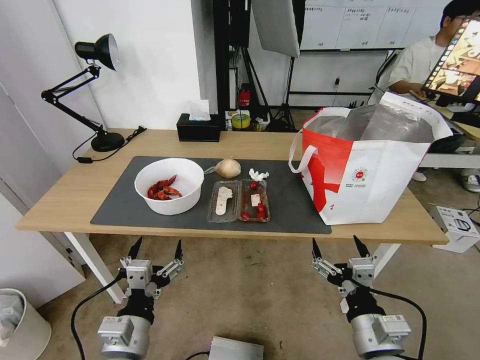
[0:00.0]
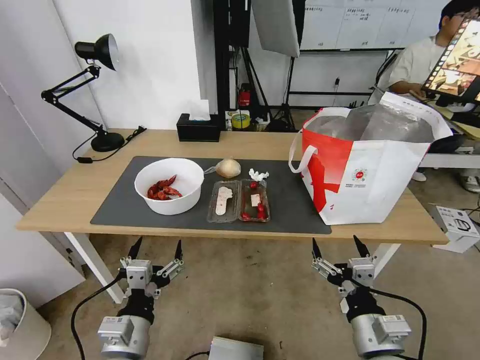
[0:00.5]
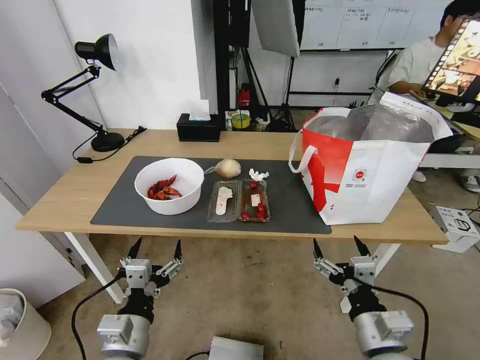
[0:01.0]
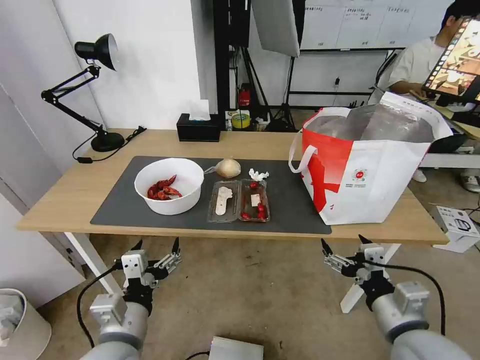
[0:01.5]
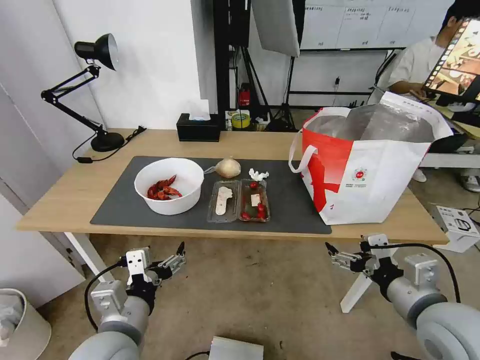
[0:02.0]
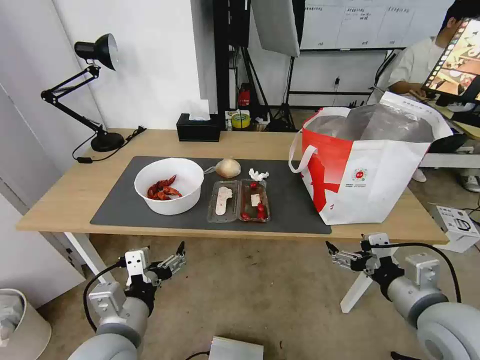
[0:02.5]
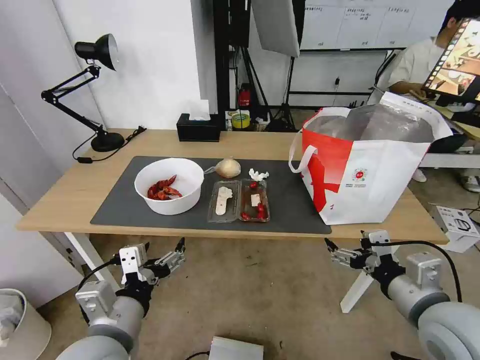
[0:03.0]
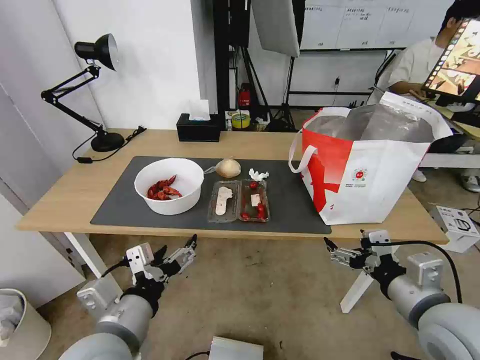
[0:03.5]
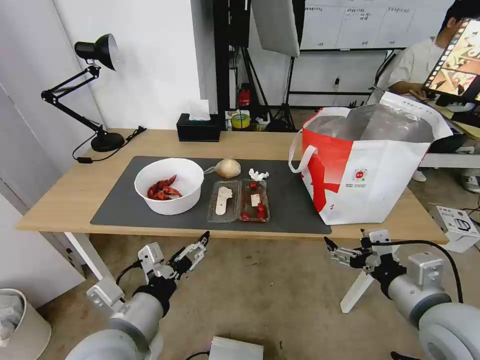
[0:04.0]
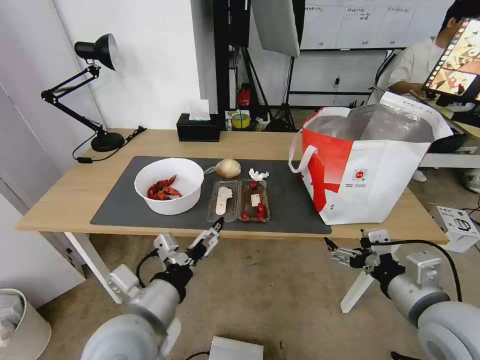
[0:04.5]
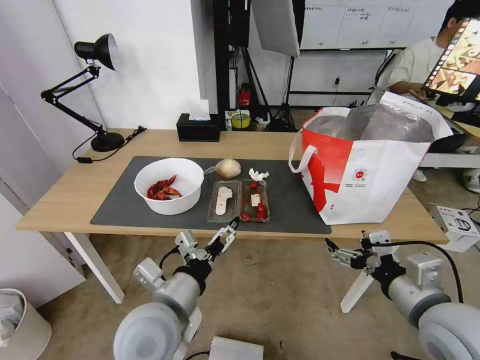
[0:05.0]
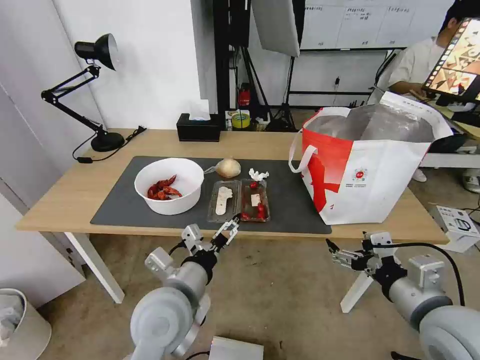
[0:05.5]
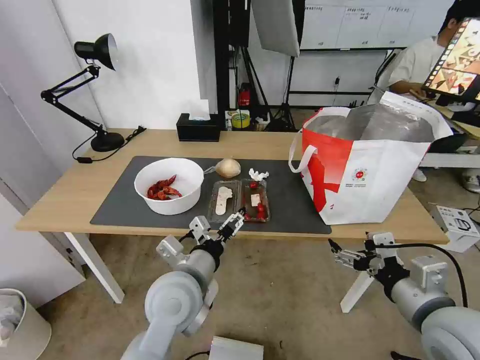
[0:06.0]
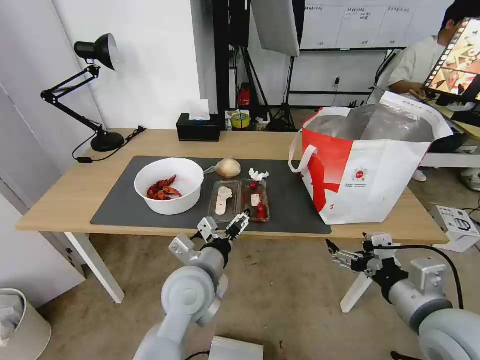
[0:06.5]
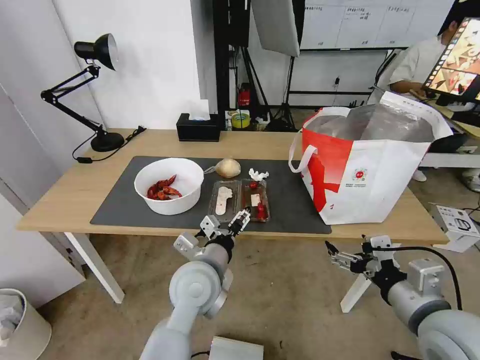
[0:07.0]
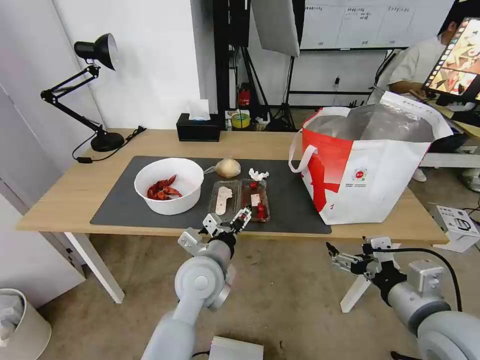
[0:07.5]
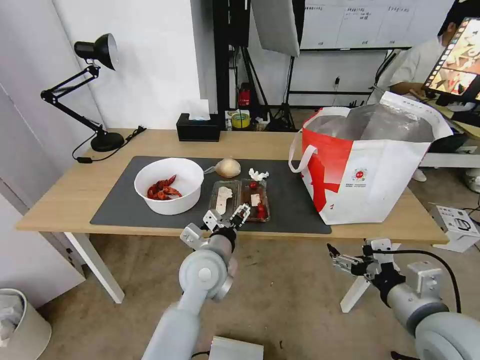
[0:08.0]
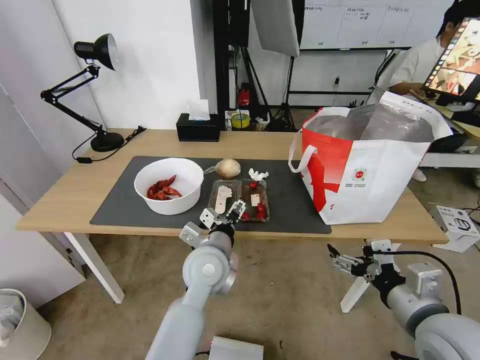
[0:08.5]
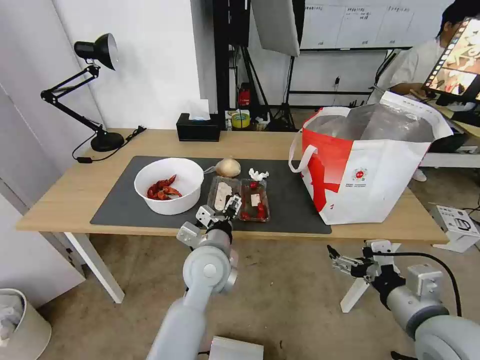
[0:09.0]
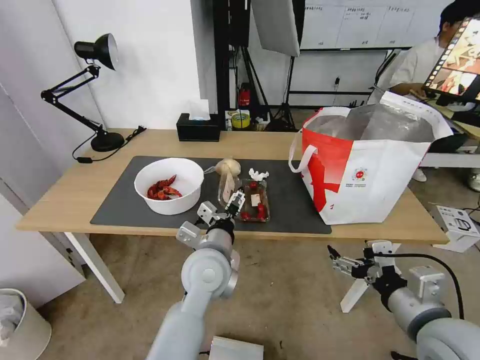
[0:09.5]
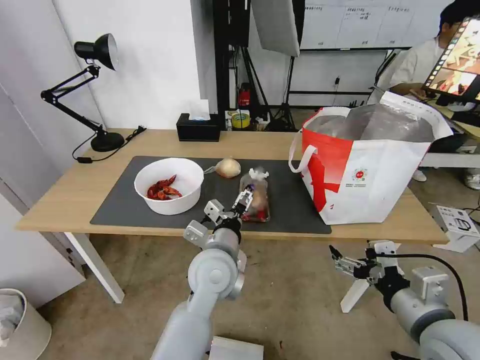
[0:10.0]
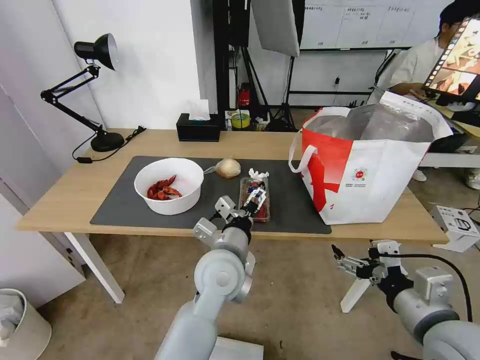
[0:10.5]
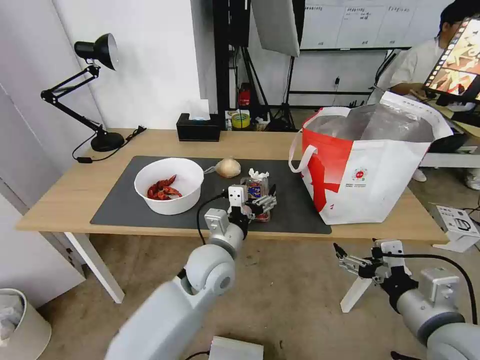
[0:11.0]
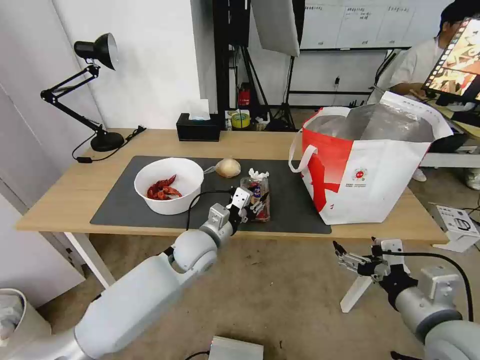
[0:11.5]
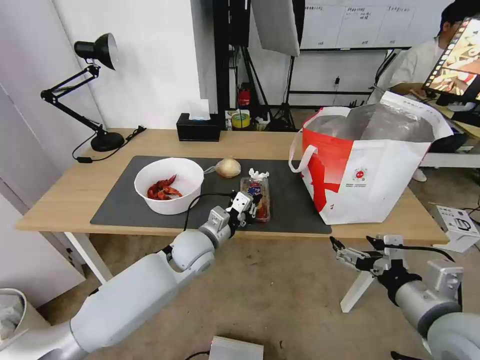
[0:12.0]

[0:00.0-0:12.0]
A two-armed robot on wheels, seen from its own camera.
Task of the whole recording: Pick up the trash from the table and place it into the takeout bag.
4.0 to 6.0 s: The left gripper is displaced forward and to the right by about 15 cm.
6.0 to 8.0 s: The left gripper shifts roughly 5 cm forward.
8.0 to 10.0 s: The grippers stay close to where they were, moving slightly.
10.0 to 12.0 s: The left gripper moves forward and to the left, roughly 10 cm, and closes.

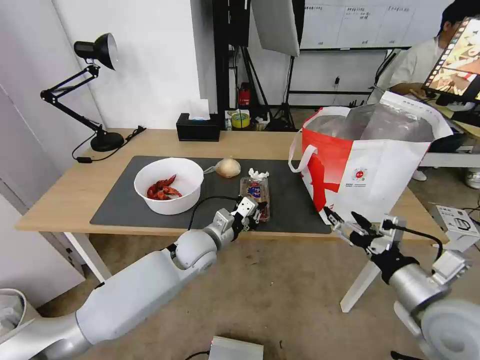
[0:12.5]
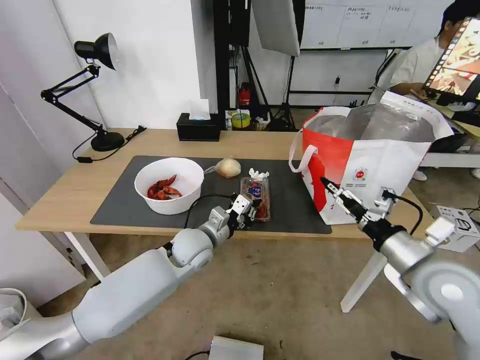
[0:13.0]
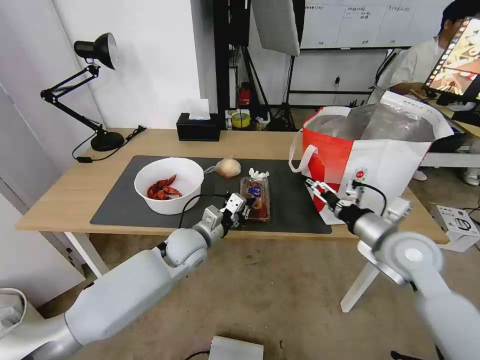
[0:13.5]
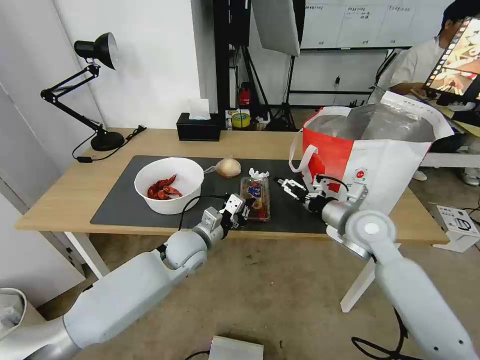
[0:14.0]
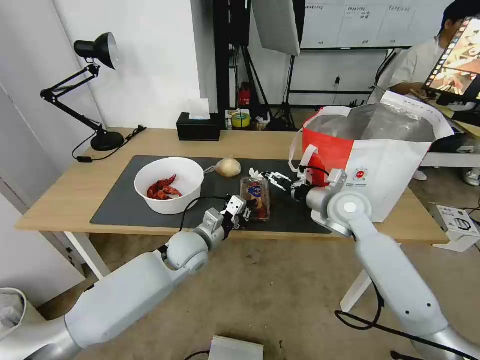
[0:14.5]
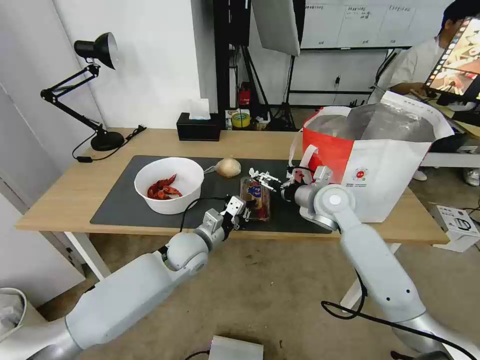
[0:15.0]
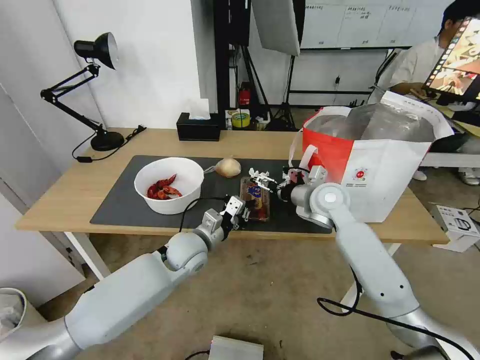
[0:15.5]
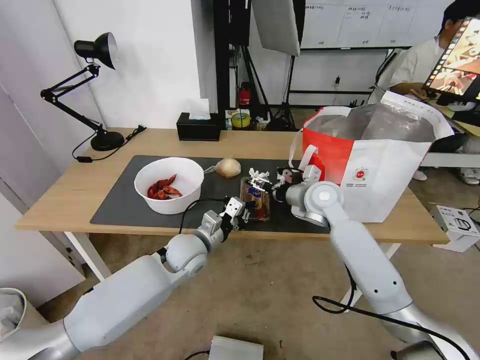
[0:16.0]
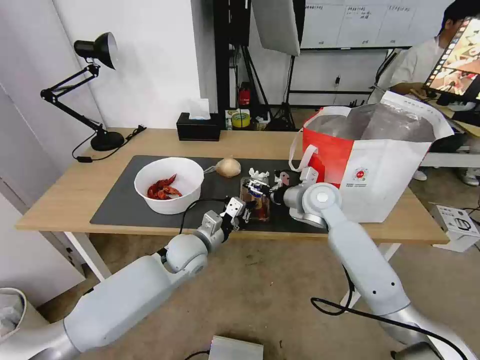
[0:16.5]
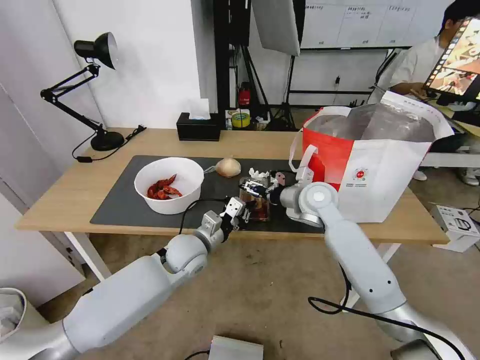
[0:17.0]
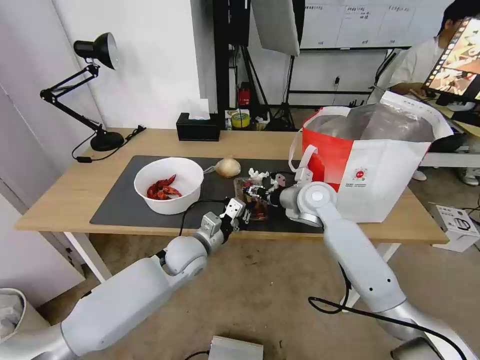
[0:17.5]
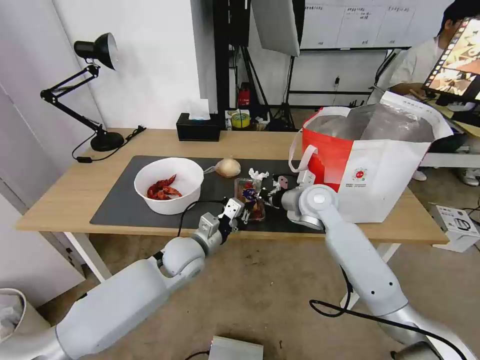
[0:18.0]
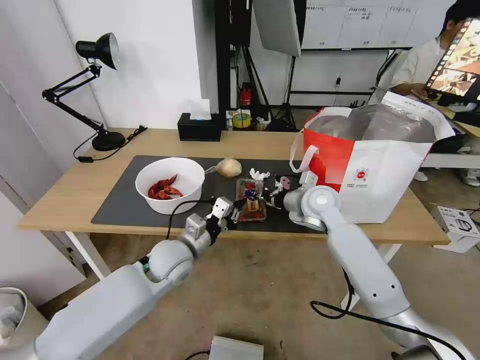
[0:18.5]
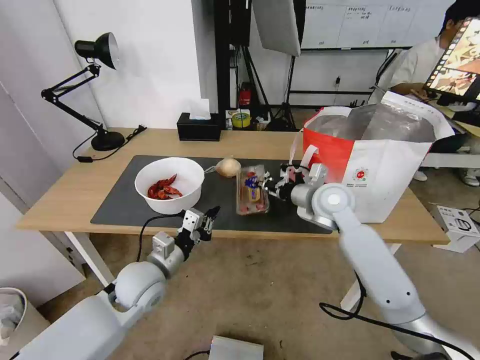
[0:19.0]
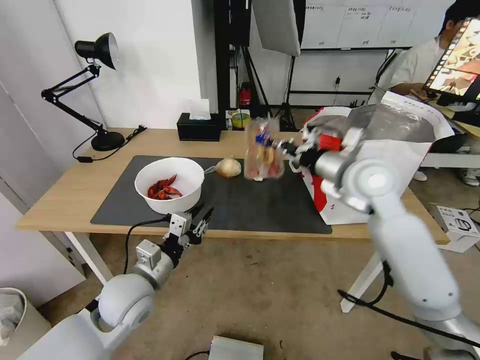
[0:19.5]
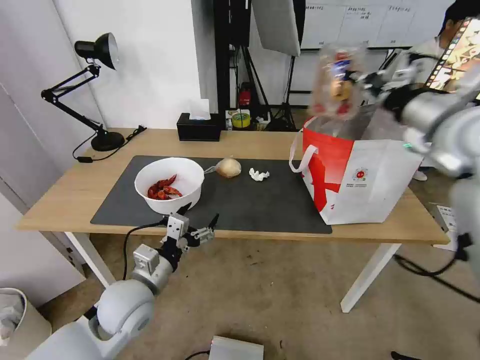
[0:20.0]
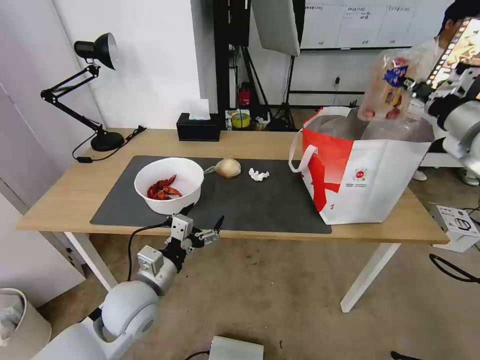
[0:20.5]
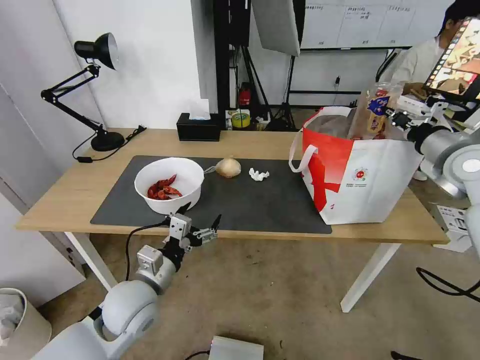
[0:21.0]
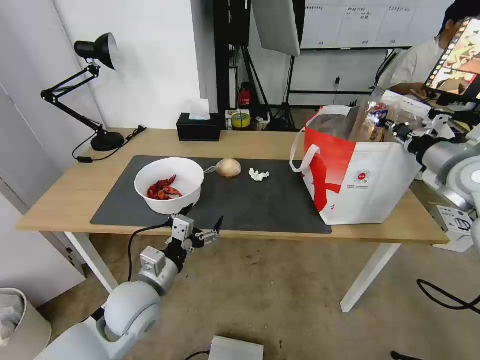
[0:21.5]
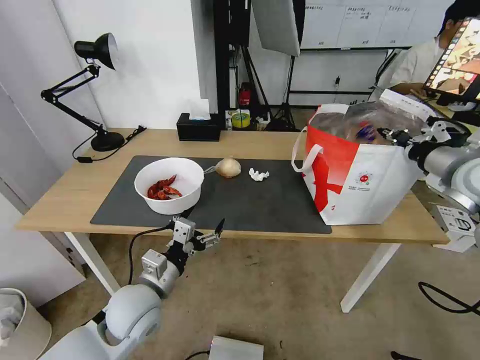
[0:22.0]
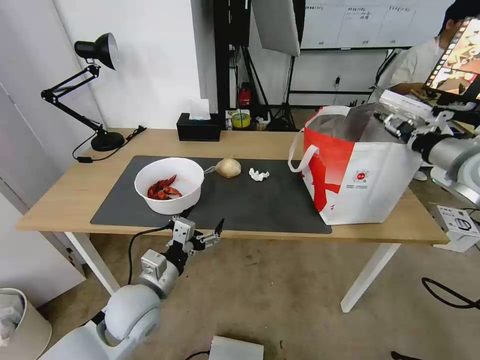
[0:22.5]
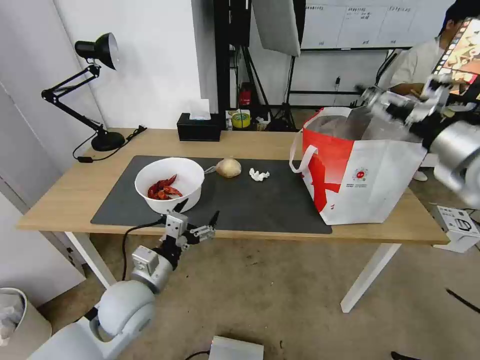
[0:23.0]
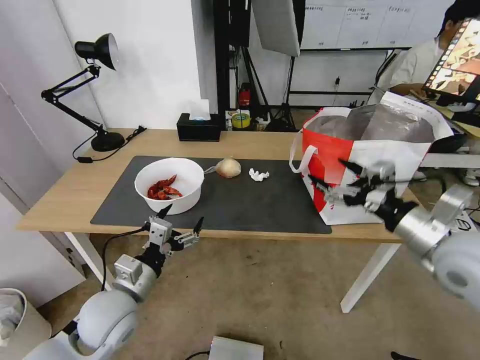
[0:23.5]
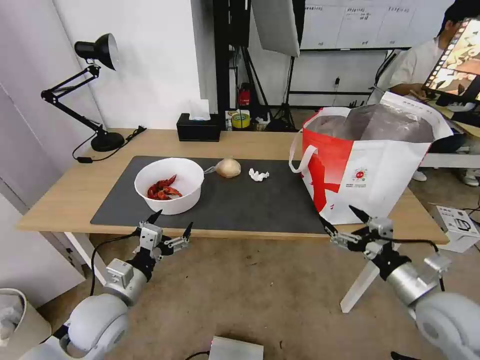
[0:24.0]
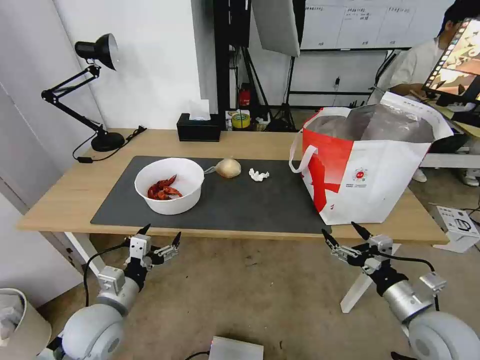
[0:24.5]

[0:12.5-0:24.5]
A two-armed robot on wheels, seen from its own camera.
Task of the whole recording: Pick up the trash from the table and place it into the takeout bag.
12.5 to 14.5 s: The right gripper travels forward by some 25 cm.
14.5 to 16.5 s: The right gripper moves about 5 cm.
16.5 to 18.5 s: The left gripper ends up about 5 cm from where it was, while the right gripper closes up.
18.5 to 20.5 s: The left gripper goes roughly 10 cm backward, and opens, while the right gripper shifts some 30 cm to the right and upward.
20.5 to 22.5 s: The right gripper shifts some 5 cm downward, and opens up.
22.5 to 24.5 s: The left gripper goes about 10 cm to the left. Meanwhile the right gripper moves downward and backward, roughly 30 cm, and opens.

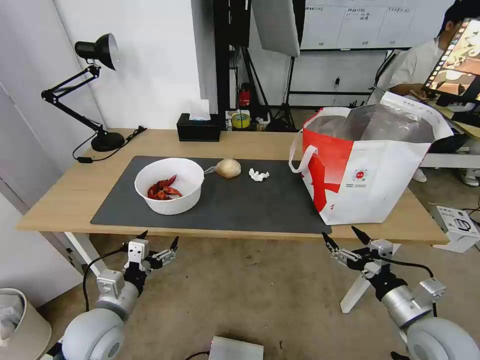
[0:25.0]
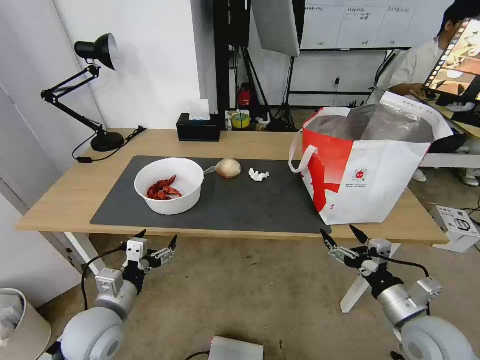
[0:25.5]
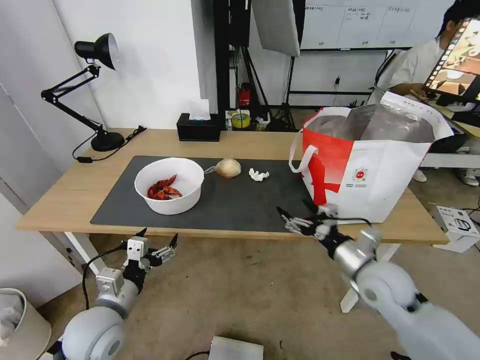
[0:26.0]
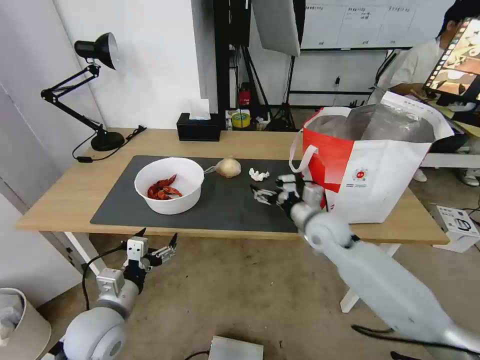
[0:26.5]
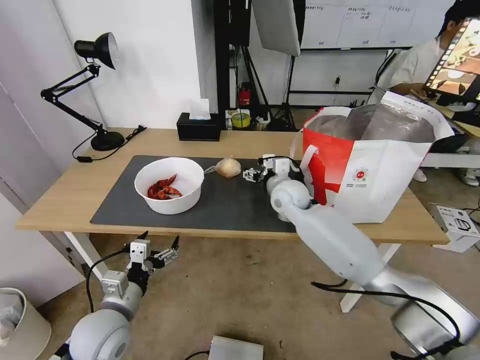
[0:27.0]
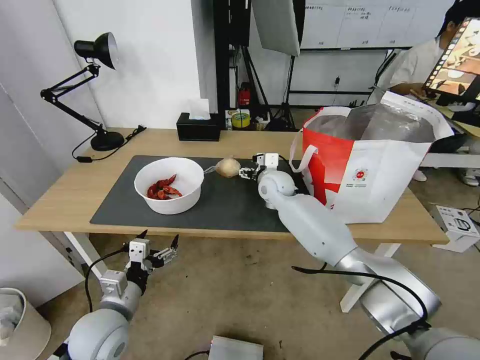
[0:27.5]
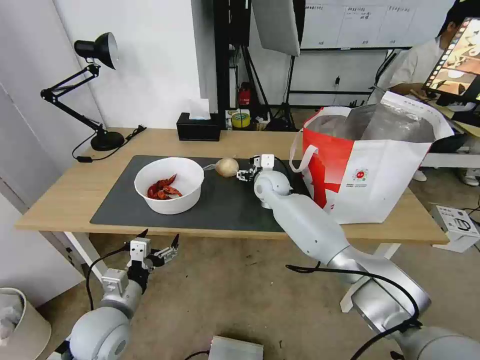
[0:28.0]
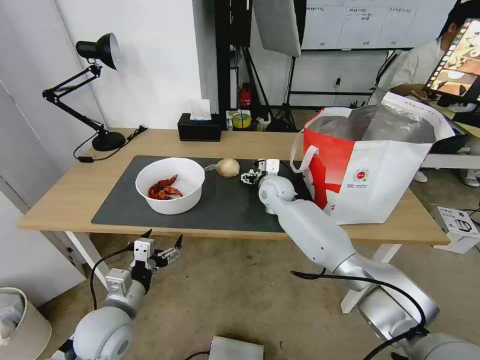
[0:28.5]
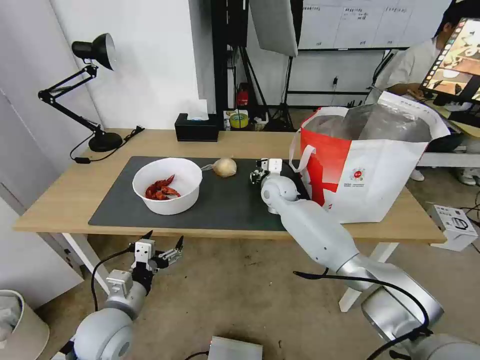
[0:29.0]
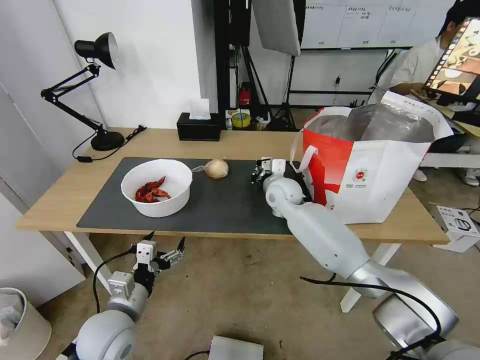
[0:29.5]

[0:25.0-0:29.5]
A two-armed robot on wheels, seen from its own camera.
Task of the whole recording: Pick up the trash from the table and place it into the takeout bag.
25.0 to 27.0 s: The right gripper shifts about 40 cm forward and to the left.
27.0 to 29.5 s: The right gripper closes.
